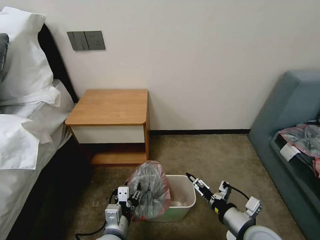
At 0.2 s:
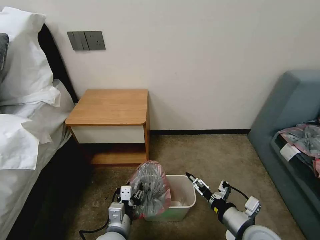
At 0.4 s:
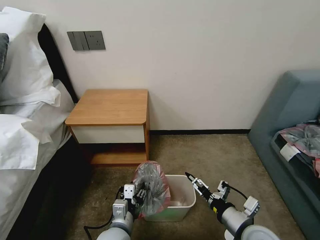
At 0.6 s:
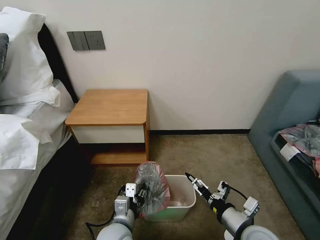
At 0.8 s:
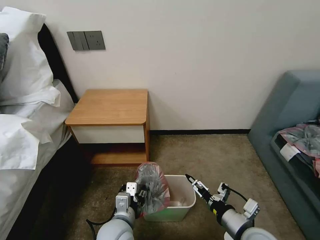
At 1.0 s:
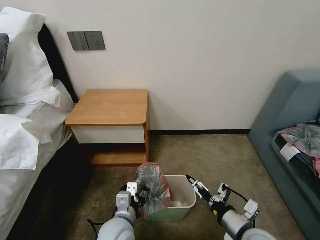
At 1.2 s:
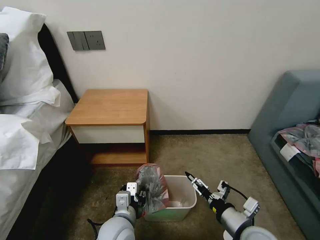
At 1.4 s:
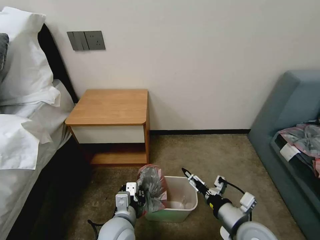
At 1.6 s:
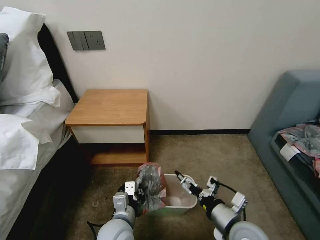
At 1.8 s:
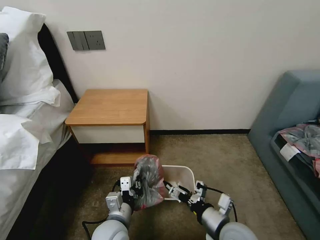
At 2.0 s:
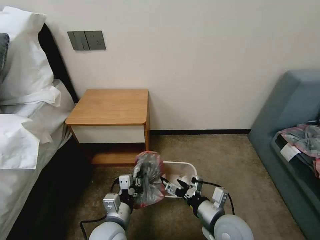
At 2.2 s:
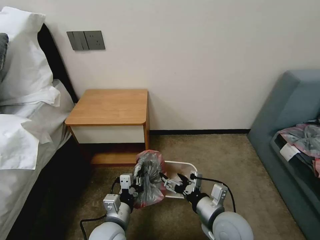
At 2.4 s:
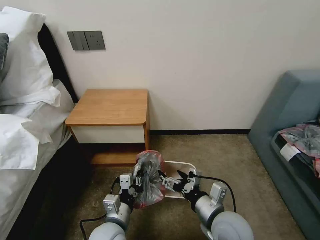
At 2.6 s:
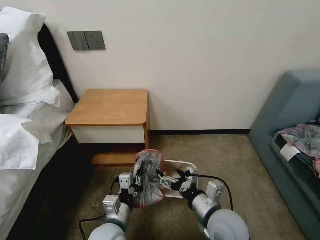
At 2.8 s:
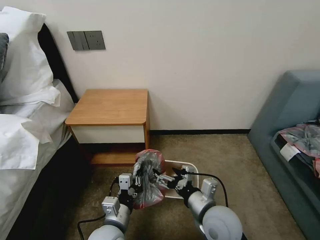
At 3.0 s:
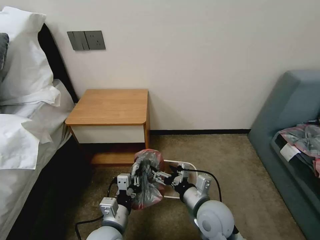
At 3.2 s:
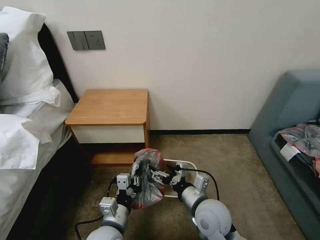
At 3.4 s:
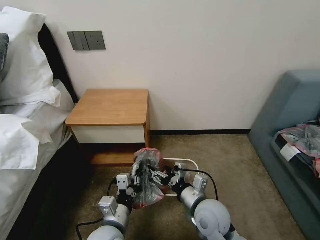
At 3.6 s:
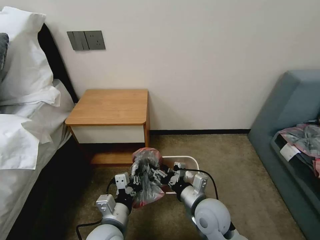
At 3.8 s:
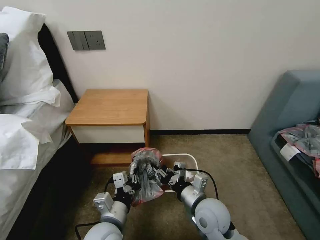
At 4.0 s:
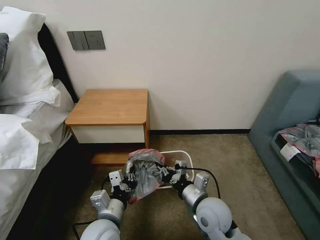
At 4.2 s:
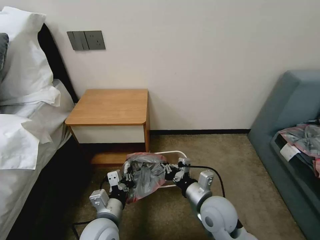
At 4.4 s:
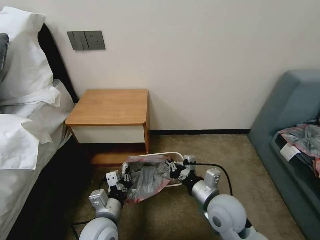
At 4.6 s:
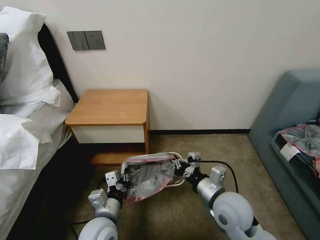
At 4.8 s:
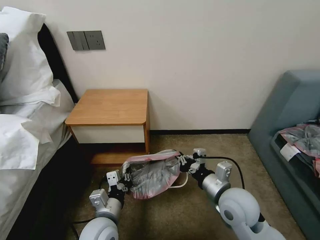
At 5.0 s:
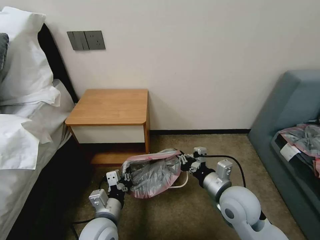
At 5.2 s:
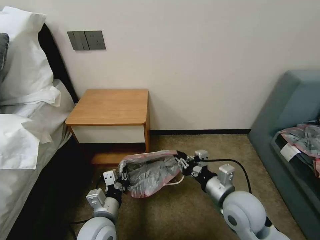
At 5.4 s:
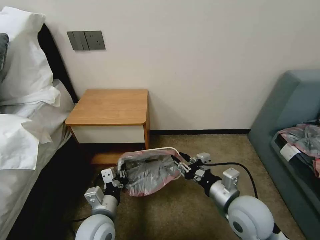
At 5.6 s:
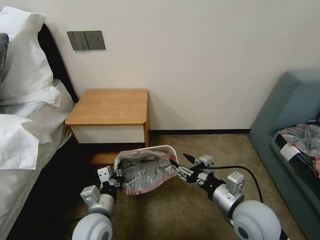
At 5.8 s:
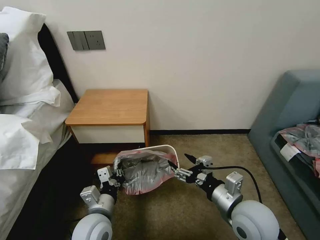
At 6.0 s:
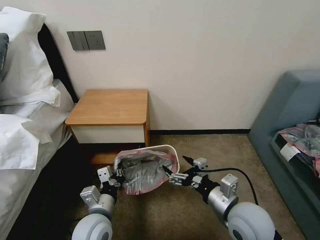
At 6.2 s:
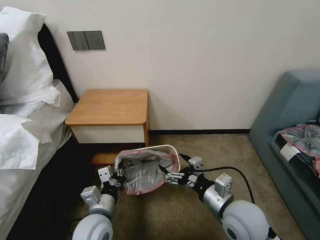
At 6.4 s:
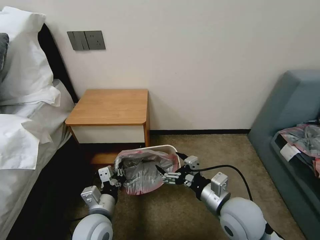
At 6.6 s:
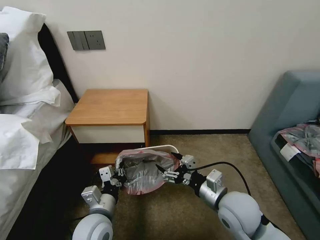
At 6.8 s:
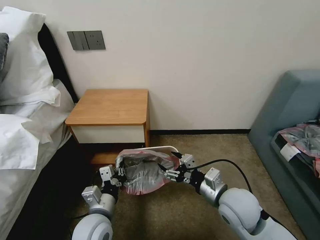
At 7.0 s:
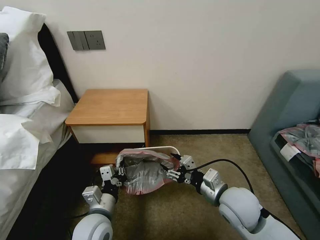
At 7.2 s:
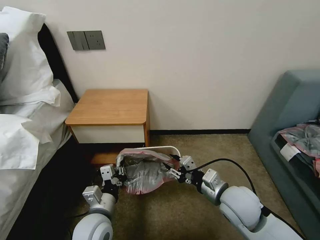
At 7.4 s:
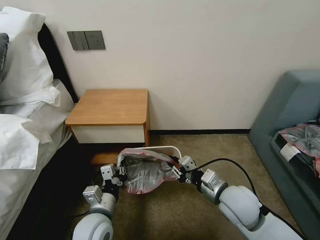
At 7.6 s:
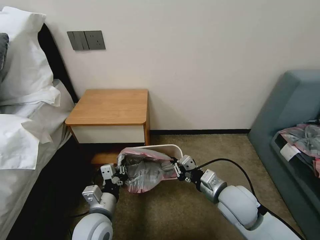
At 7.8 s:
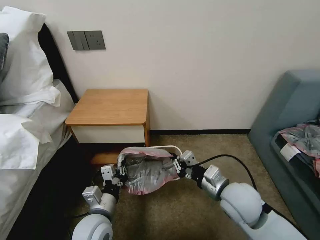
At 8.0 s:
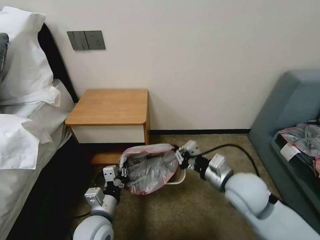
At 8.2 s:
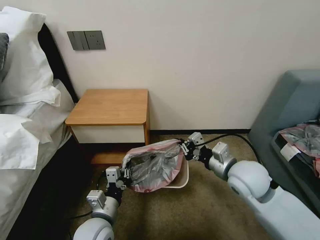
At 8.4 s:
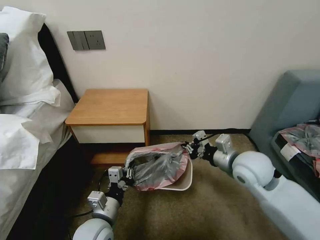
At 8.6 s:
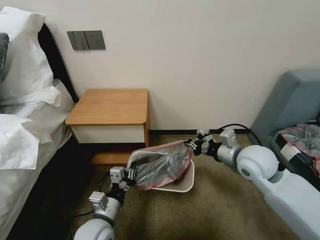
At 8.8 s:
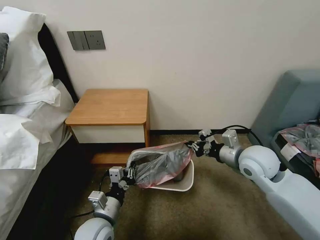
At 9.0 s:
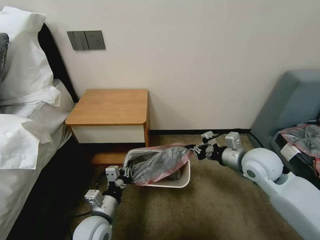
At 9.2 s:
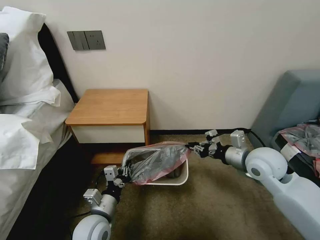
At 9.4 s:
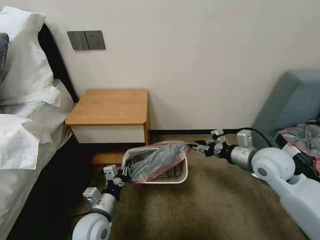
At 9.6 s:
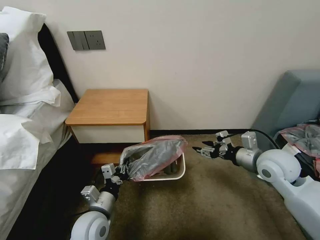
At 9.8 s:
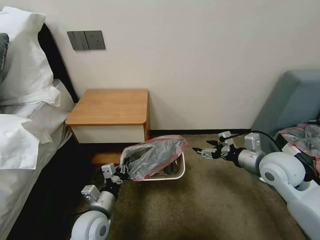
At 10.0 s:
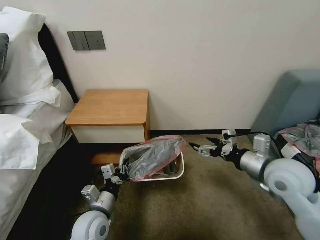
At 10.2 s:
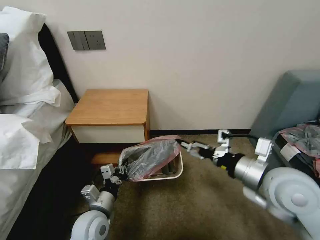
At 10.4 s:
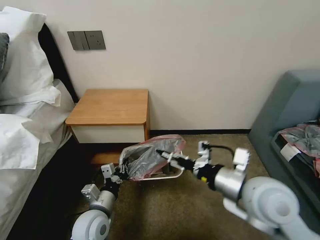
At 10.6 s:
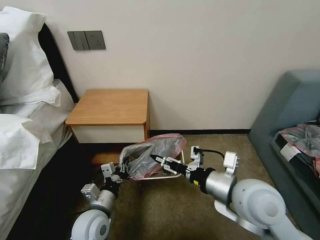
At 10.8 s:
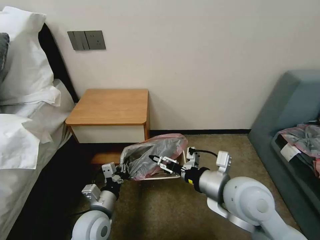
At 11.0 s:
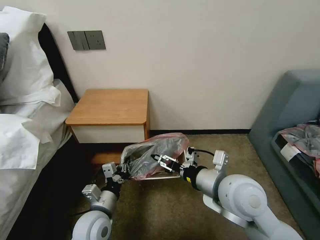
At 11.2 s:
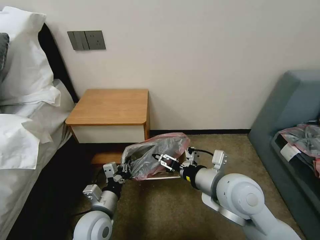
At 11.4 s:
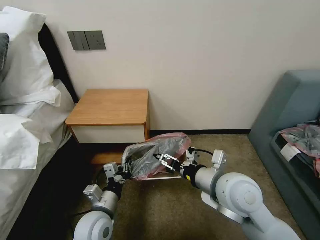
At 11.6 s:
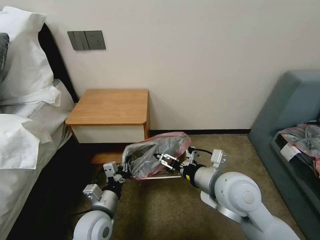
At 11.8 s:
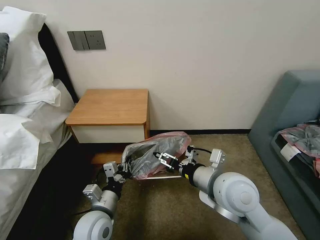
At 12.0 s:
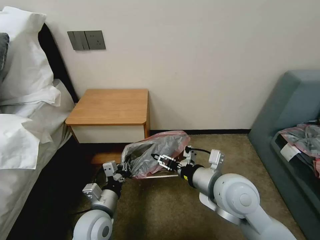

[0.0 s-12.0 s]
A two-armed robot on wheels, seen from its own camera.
Task of the whole recording: Pick up the garbage bag from the table and place it over the trash can.
0.0 to 1.6 s: The left gripper closes its fingers.
1.6 to 3.0 s: The right gripper goes roughly 10 cm to the left and forward.
3.0 to 4.4 s: The right gripper closes.
4.4 to 6.0 s: The right gripper moves about 5 cm, and opens.
6.0 to 7.6 s: The right gripper moves forward, about 5 cm, and closes up.
7.6 to 9.0 s: The right gripper goes roughly 15 cm forward, to the right and upward.
9.0 to 10.4 s: The right gripper shifts about 15 cm backward and to the left, and opens up.
10.4 to 12.0 s: The right gripper is displaced to the left by about 5 cm.

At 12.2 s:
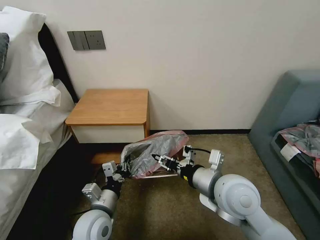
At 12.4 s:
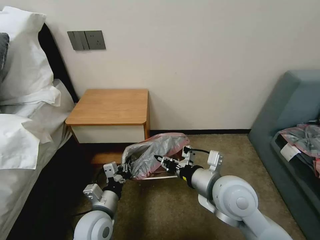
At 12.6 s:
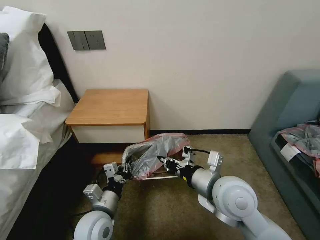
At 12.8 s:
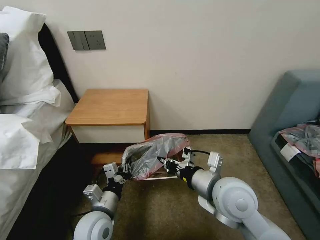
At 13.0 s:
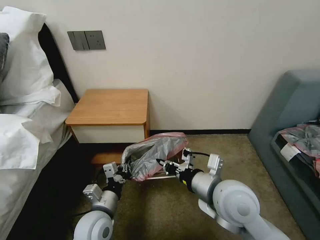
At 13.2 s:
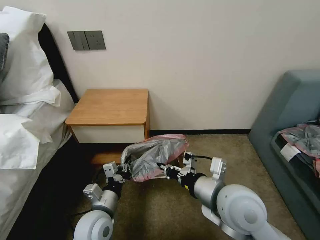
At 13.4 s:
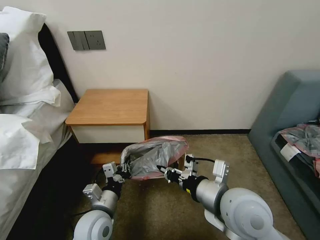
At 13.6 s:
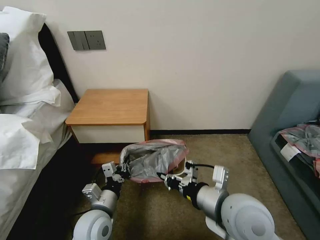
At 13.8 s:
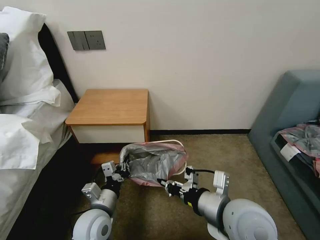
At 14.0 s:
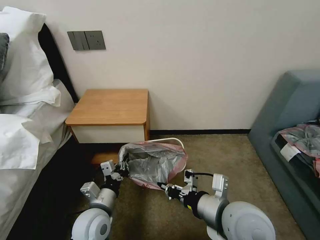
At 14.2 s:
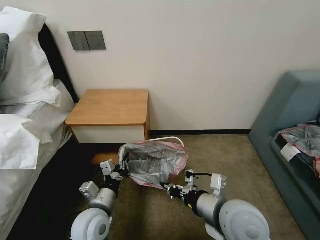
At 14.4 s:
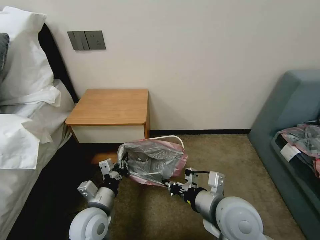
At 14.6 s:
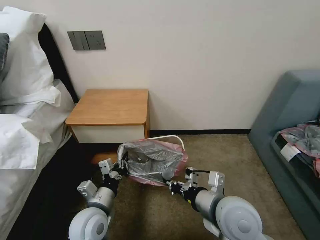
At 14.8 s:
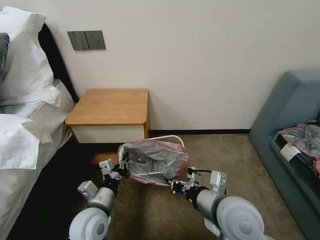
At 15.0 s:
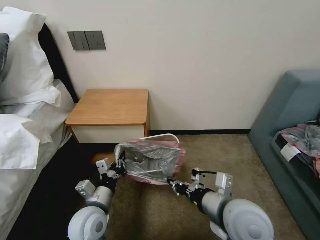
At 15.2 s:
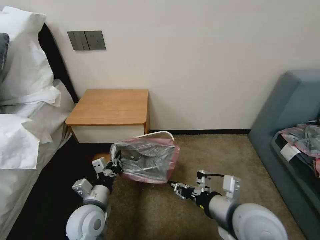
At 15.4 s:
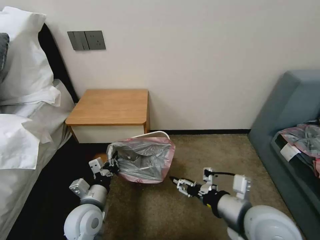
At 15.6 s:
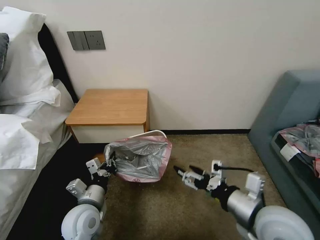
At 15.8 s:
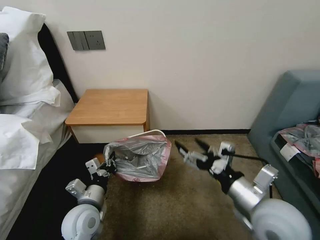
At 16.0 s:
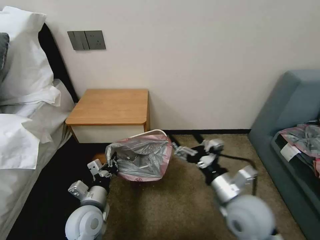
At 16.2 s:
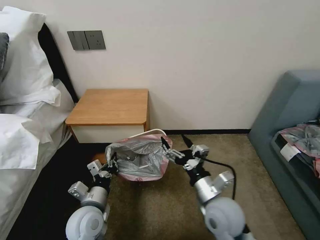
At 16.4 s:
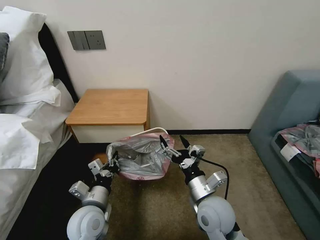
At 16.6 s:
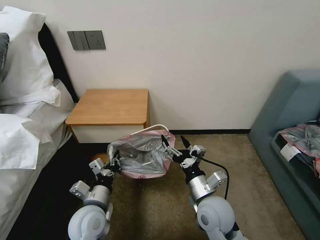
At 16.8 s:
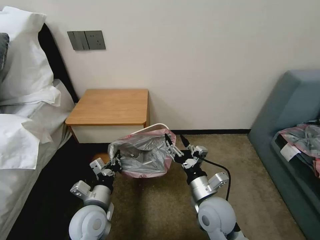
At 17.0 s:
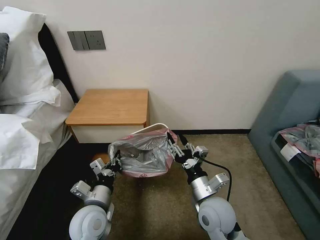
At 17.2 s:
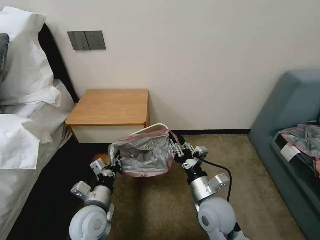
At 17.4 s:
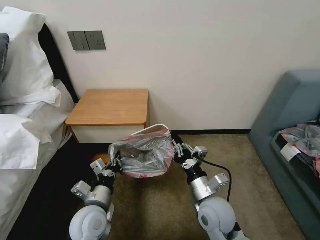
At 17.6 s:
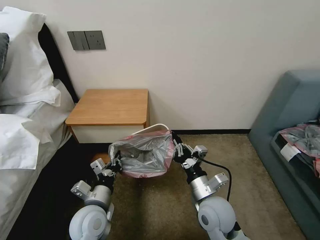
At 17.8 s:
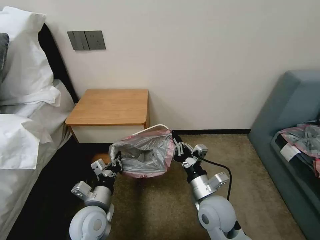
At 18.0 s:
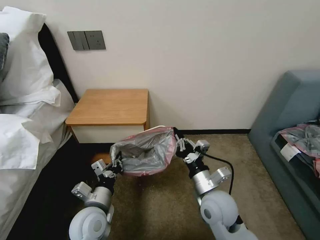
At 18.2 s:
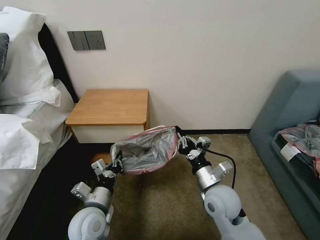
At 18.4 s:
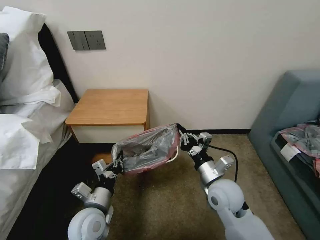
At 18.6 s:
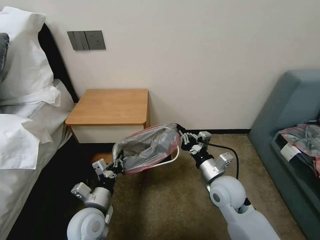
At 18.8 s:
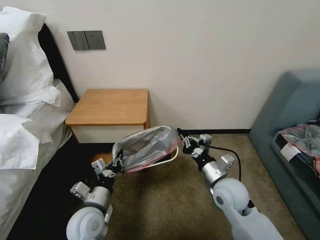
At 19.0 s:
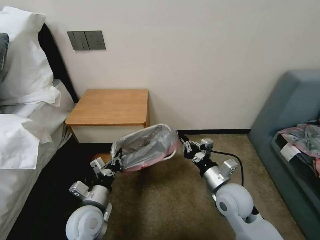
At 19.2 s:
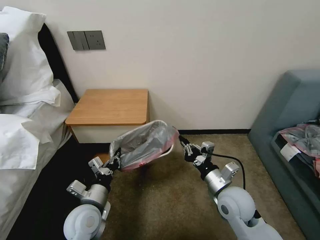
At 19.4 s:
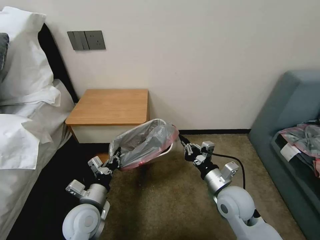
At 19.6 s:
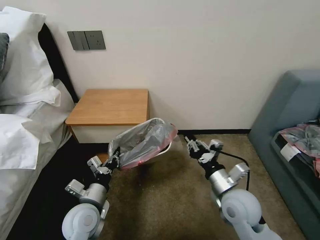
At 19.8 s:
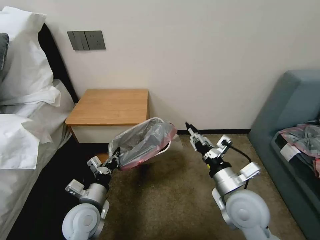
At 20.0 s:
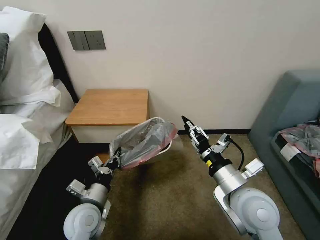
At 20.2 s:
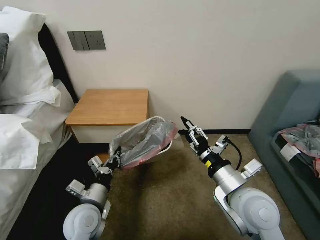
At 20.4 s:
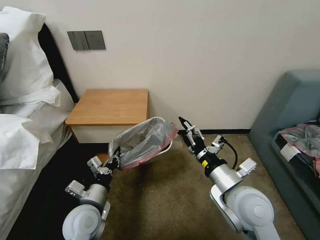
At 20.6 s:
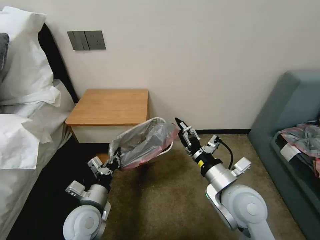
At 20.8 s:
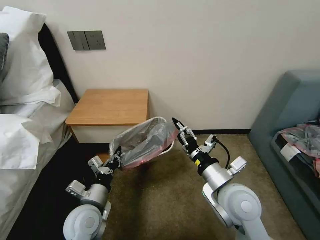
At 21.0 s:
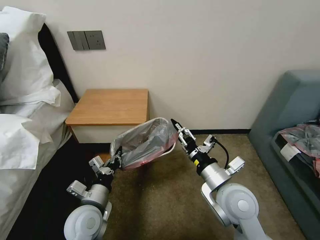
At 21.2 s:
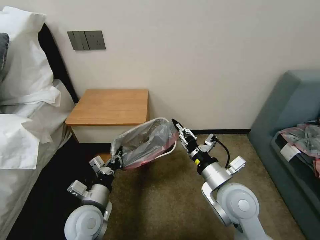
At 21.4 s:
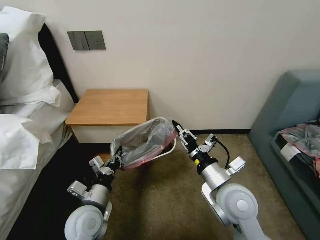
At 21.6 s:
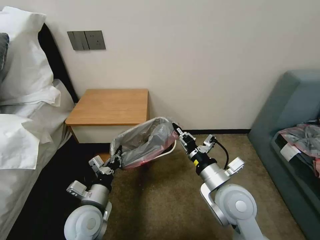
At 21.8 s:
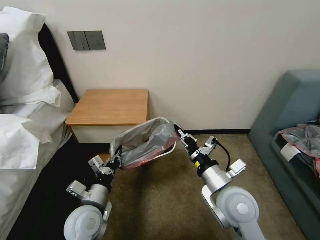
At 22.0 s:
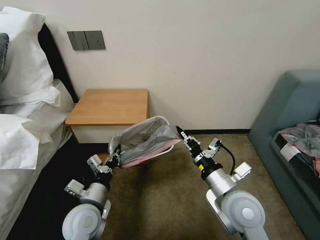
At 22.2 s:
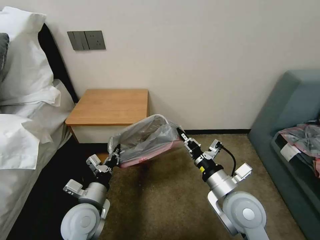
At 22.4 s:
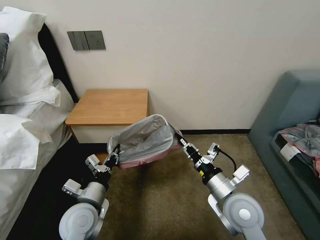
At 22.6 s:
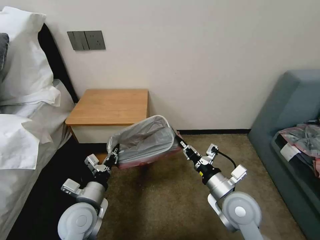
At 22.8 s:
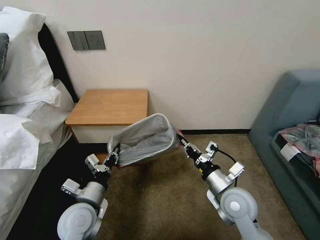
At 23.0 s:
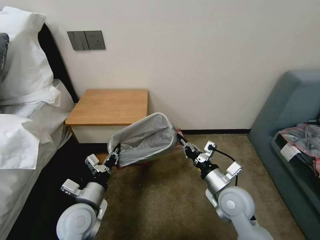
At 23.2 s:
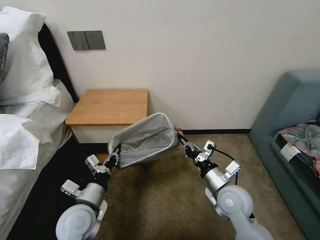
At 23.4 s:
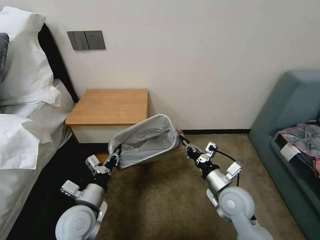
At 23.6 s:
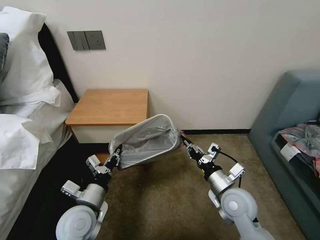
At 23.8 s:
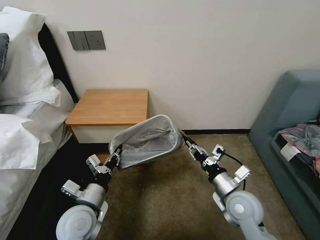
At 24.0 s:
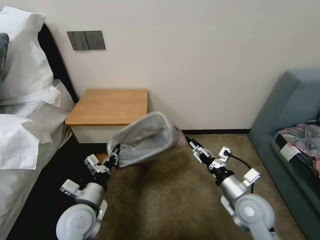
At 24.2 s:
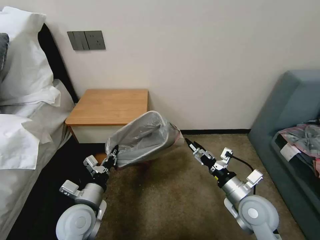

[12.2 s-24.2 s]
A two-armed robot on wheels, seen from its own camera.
Task of the whole recording: Pick up the garbage bag from the table and place it over the trash can.
12.2 to 13.8 s: The right gripper moves backward, approximately 5 cm, and closes its fingers.
13.8 to 15.2 s: The grippers move only a little.
15.2 to 16.6 s: The right gripper travels downward and to the left by approximately 10 cm, and opens up.
16.6 to 18.2 s: The right gripper closes its fingers.
18.2 to 19.8 s: The right gripper goes roughly 5 cm upward, and opens its fingers.
19.8 to 21.2 s: The right gripper opens, then closes once more.
21.2 to 22.6 s: The right gripper ends up roughly 5 cm from where it was, and closes up.
22.6 to 24.2 s: The right gripper heads to the right, covering approximately 5 cm, and opens its fingers.
